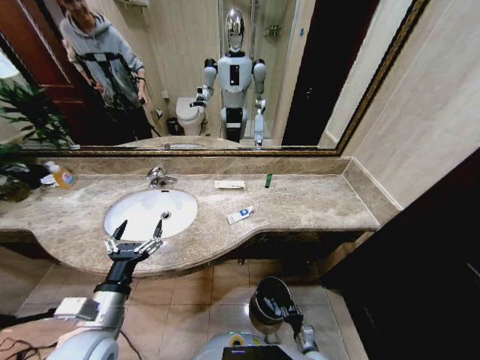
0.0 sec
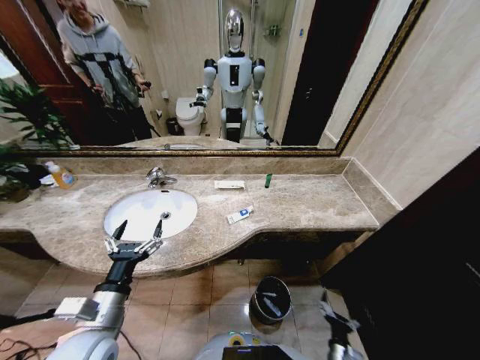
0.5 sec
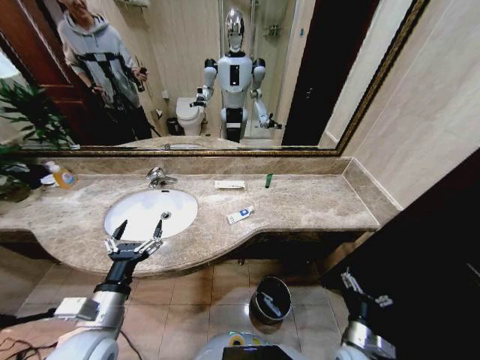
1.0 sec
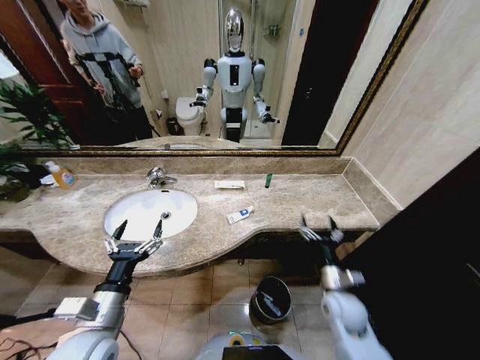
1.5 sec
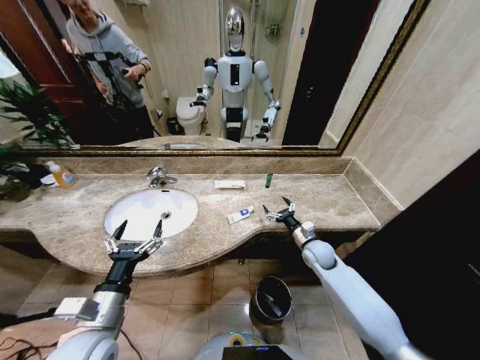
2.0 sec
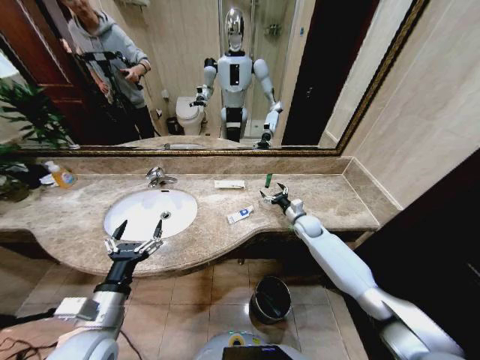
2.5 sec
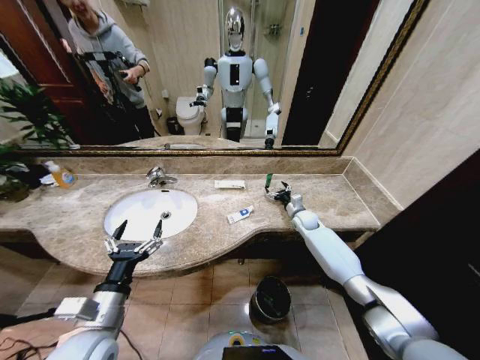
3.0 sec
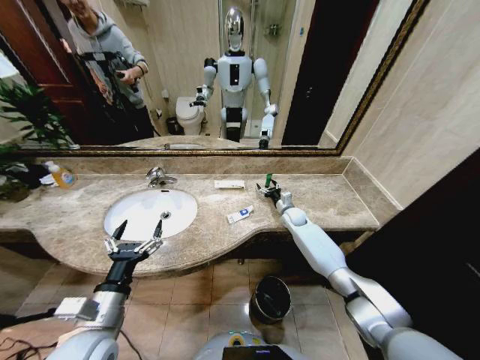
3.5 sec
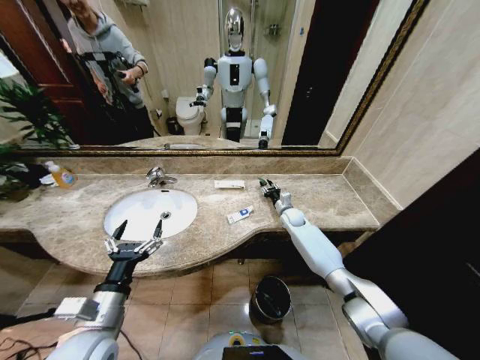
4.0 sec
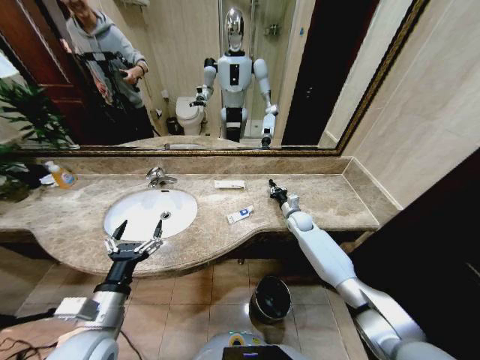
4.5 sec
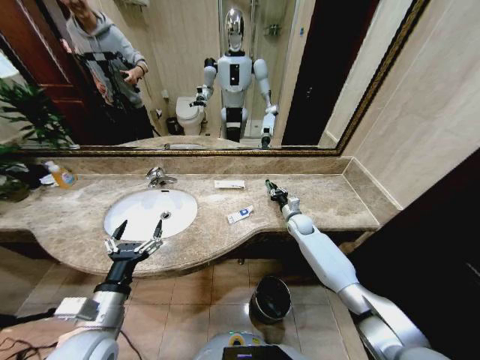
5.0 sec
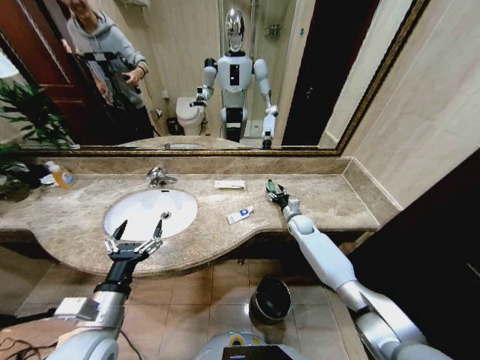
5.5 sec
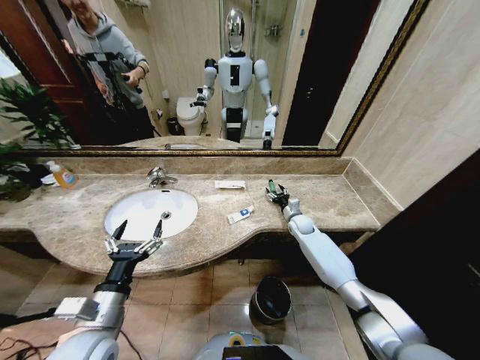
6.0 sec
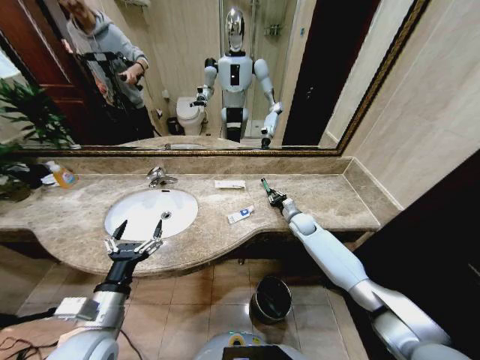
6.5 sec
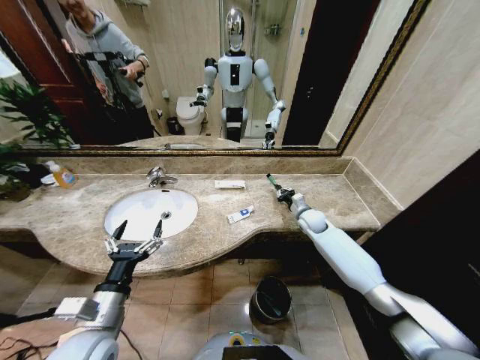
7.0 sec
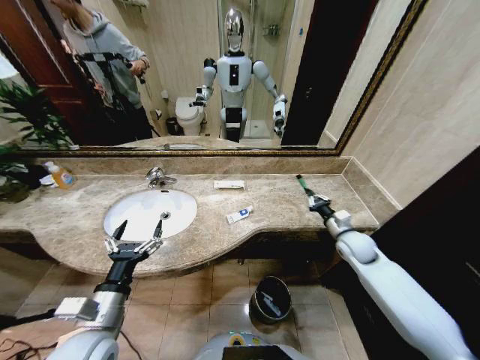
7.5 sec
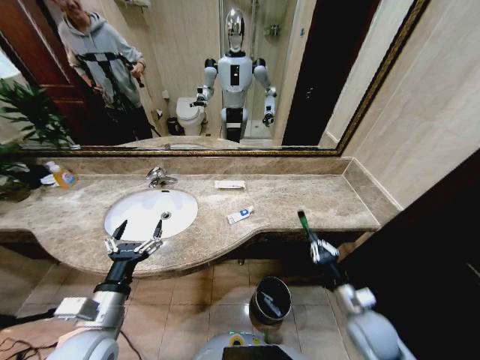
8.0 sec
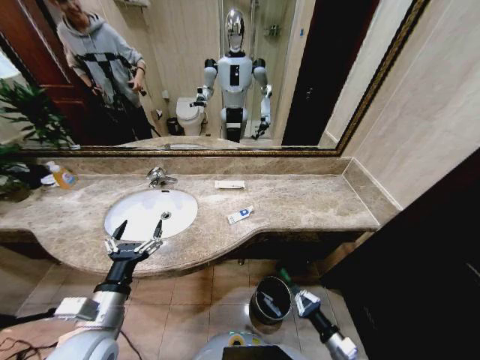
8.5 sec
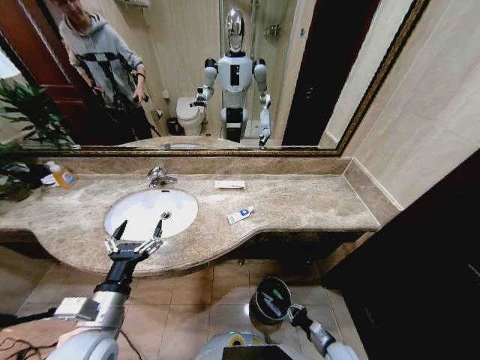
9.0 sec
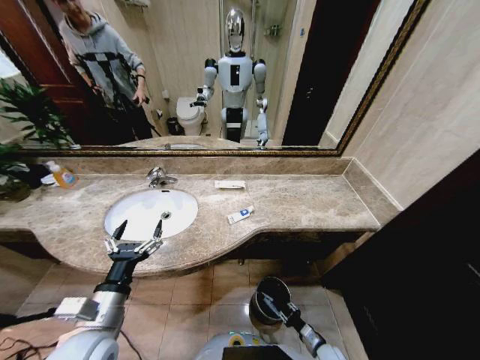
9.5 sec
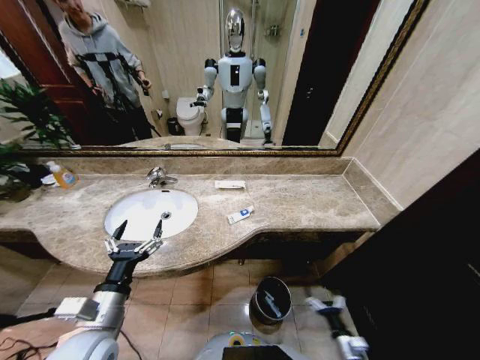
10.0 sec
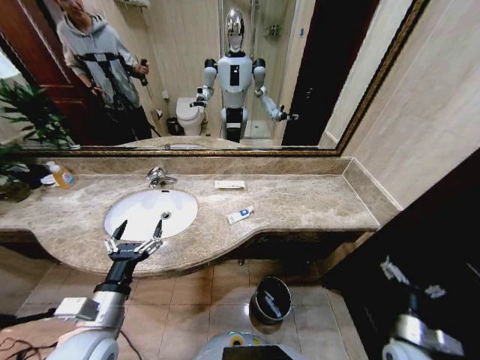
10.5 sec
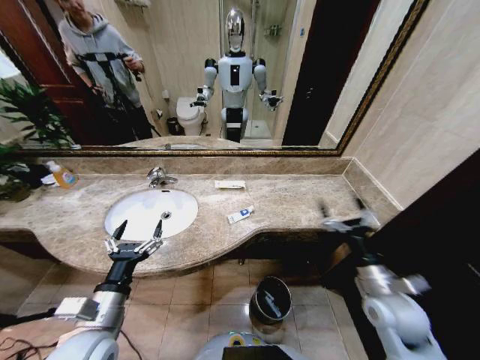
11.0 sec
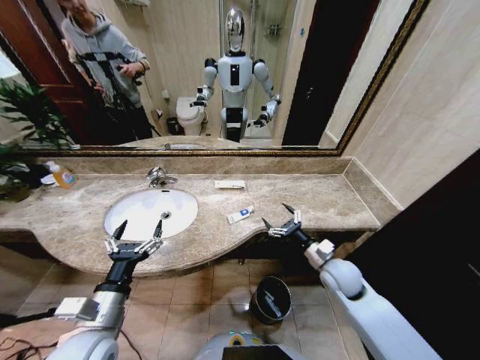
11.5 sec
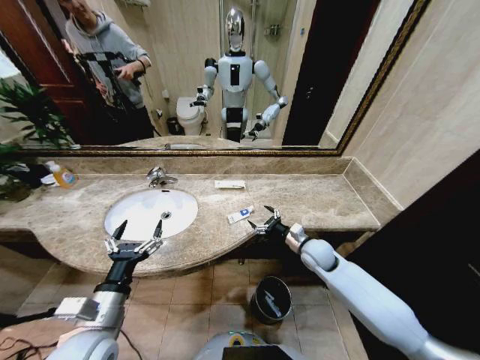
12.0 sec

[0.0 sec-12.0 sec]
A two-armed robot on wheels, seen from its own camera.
Task of the whole recording: Pick up the trash from the sink and place it in the trash bin.
0.0 sec to 2.0 sec: The right gripper is displaced upward and forward by some 40 cm, and opens.
2.0 sec to 4.0 sec: The right gripper heads forward, covering roughly 15 cm, and closes up.
4.0 sec to 6.0 sec: The right gripper closes and opens again.
6.0 sec to 8.0 sec: The right gripper moves backward, some 35 cm, and closes up.
8.0 sec to 10.0 sec: The right gripper travels downward and backward by some 20 cm, and opens its fingers.
10.0 sec to 12.0 sec: The right gripper is displaced forward and upward by approximately 35 cm.

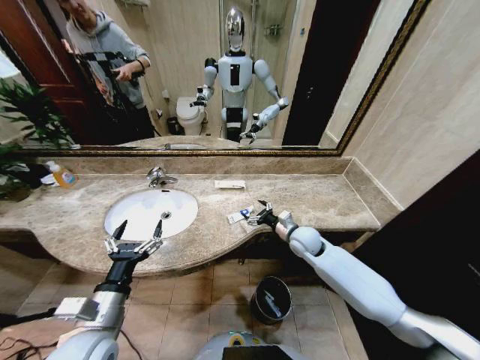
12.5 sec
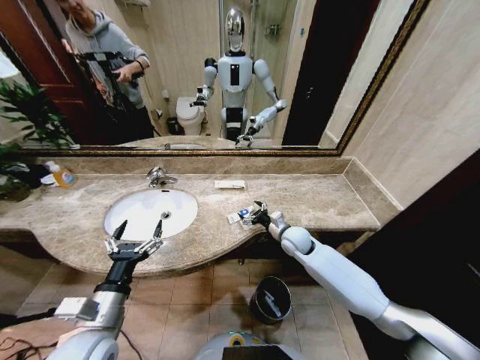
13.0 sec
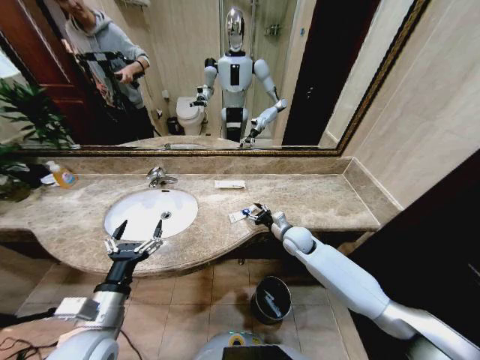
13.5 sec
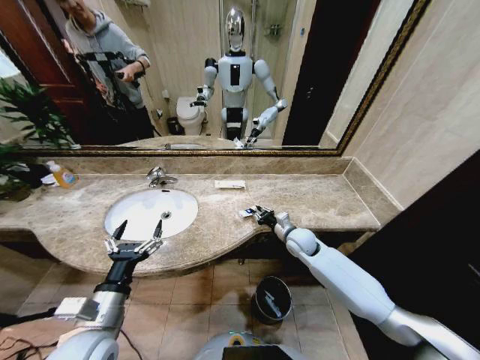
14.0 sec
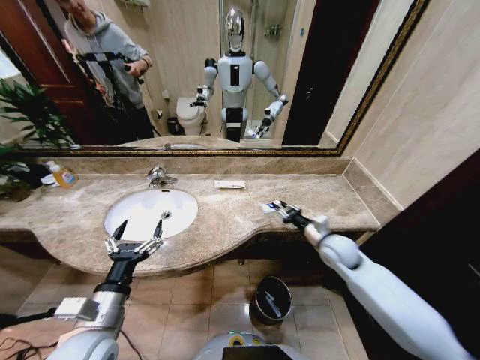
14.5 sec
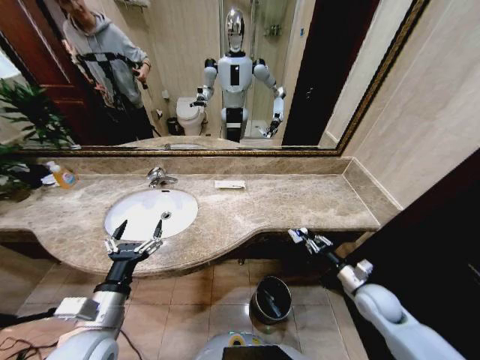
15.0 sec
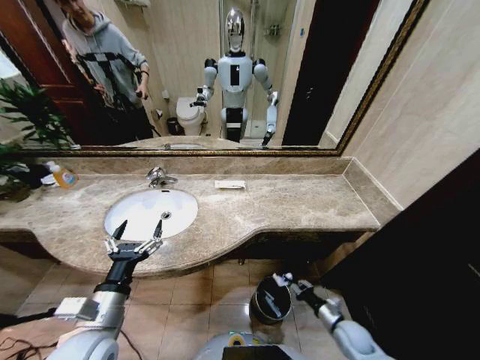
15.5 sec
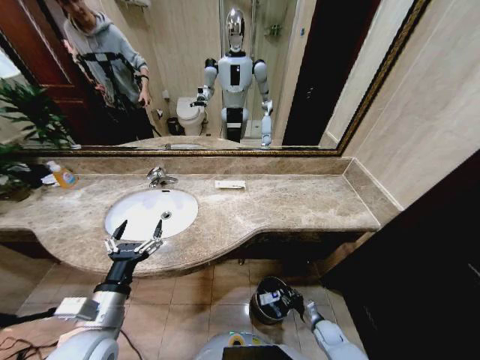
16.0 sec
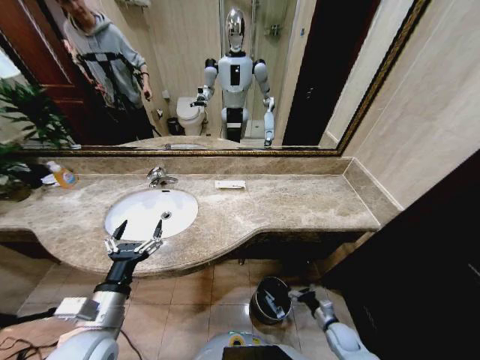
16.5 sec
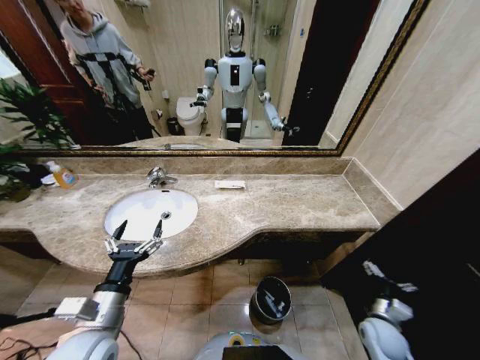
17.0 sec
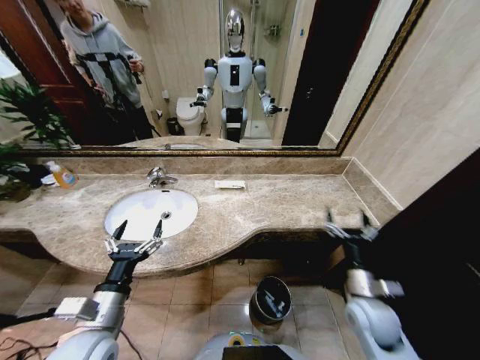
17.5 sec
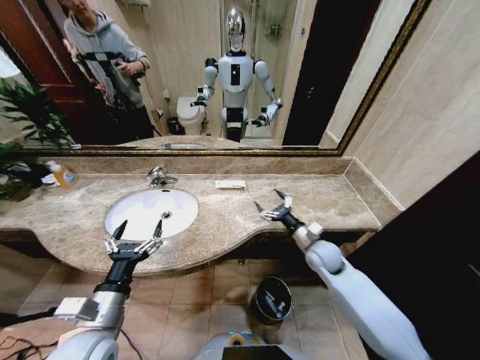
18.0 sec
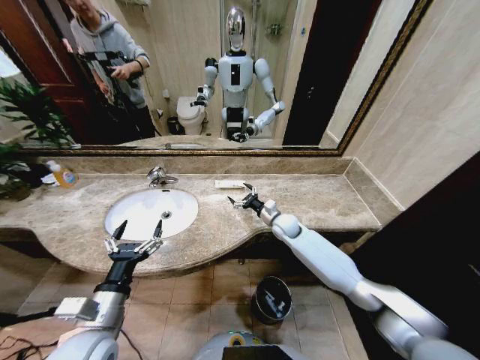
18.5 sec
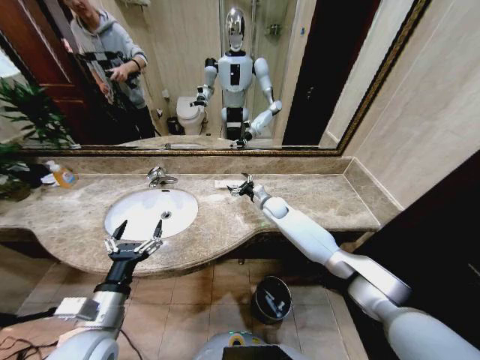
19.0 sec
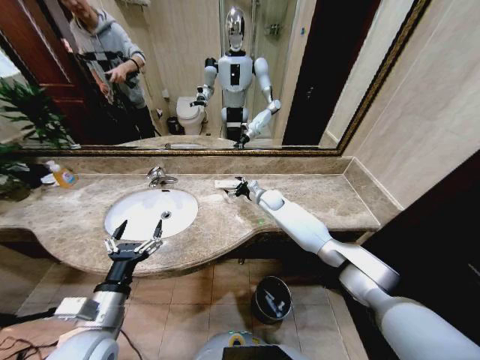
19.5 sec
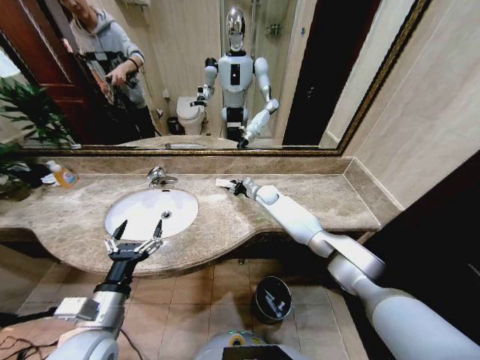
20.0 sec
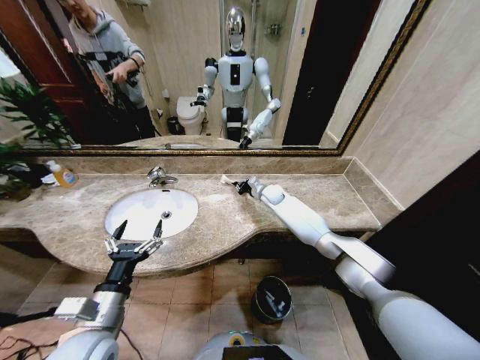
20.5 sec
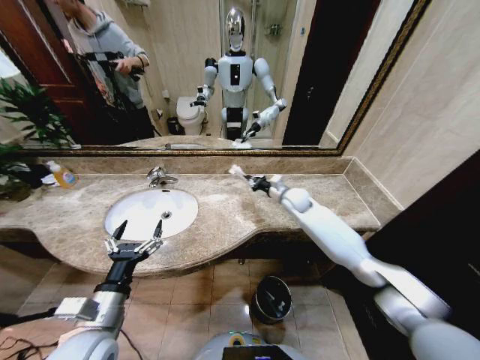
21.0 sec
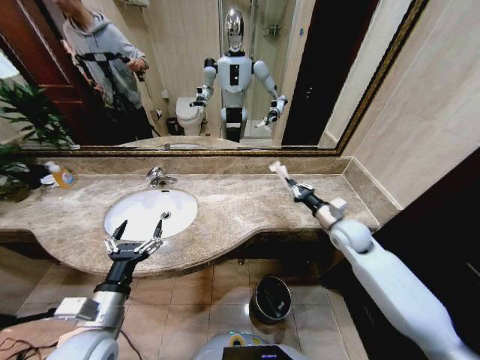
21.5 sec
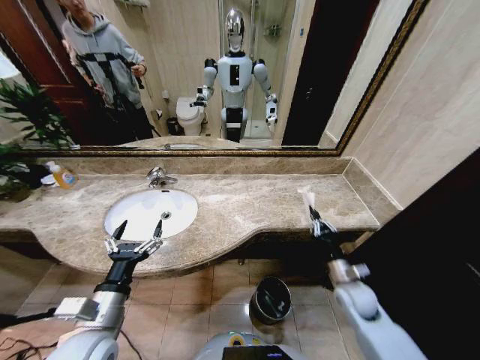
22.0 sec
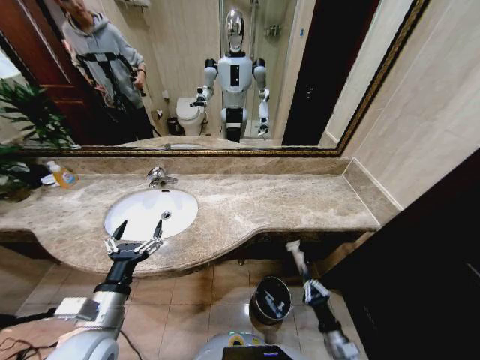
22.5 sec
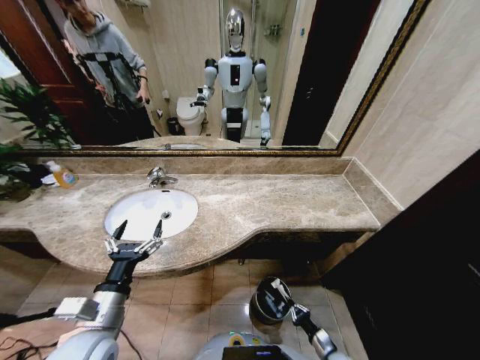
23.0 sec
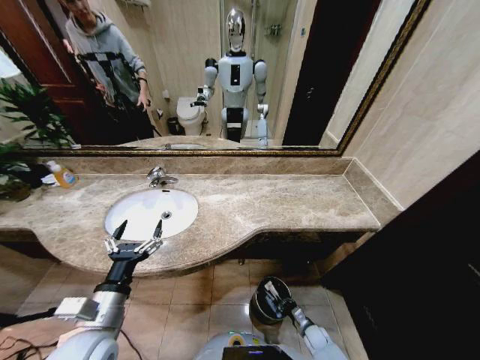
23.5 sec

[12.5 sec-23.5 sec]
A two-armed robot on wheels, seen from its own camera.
Task of the whole recording: Pick up the trash from the sink and place it in the trash bin.
12.5 sec to 14.5 sec: The right gripper shifts some 10 cm to the right, and closes up.
14.5 sec to 16.0 sec: The right gripper moves downward and backward, approximately 40 cm.
16.0 sec to 18.0 sec: The right gripper moves upward and forward, about 35 cm, and opens.
18.0 sec to 20.0 sec: The right gripper shifts approximately 30 cm forward and to the left, and closes.
20.0 sec to 21.5 sec: The right gripper moves backward and to the right, some 30 cm, and closes up.
21.5 sec to 23.5 sec: The right gripper is displaced downward and backward by about 50 cm.

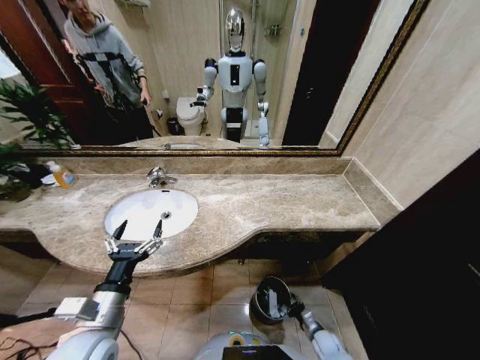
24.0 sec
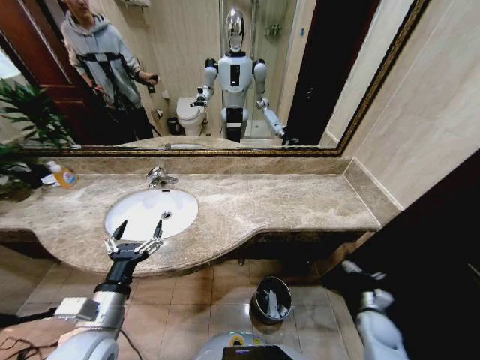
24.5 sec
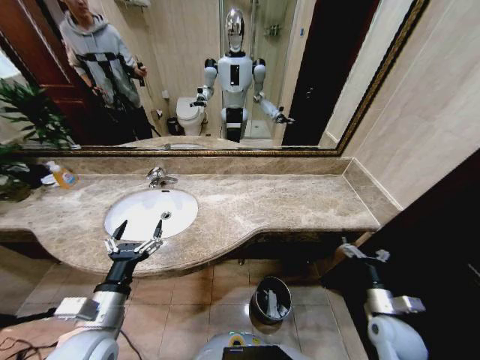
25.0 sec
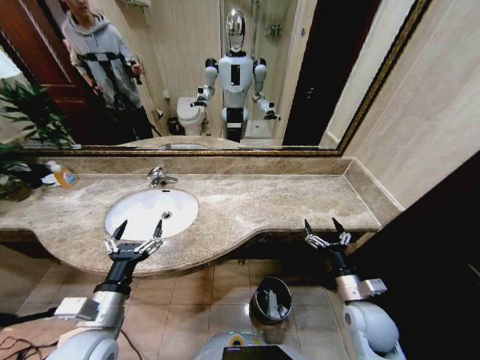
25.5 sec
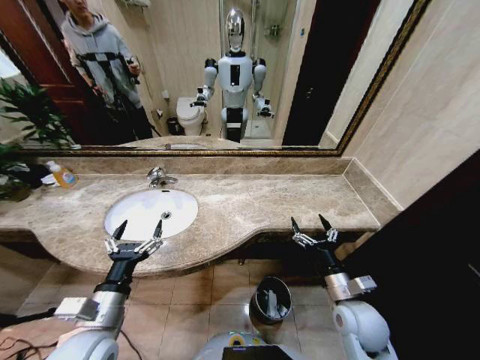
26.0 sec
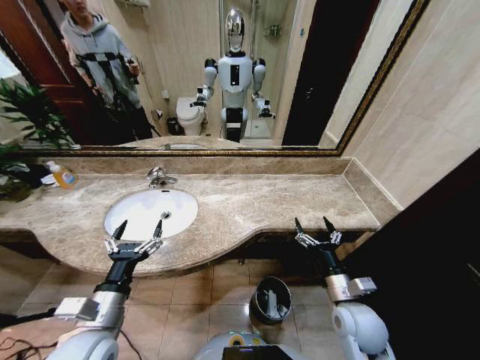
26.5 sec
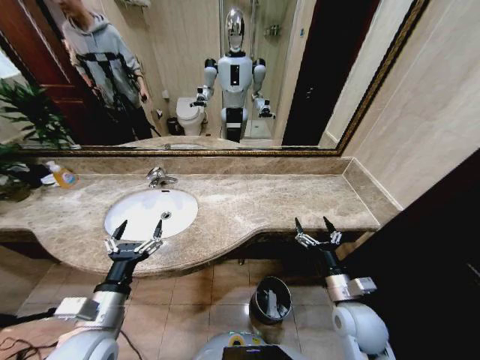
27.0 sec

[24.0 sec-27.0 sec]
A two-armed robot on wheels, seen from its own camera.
Task of the whole recording: Pick up the trash from the sink and place it in the trash bin.
24.0 sec to 25.5 sec: The right gripper moves upward, some 30 cm, and opens.
25.5 sec to 27.0 sec: The grippers move only a little.
